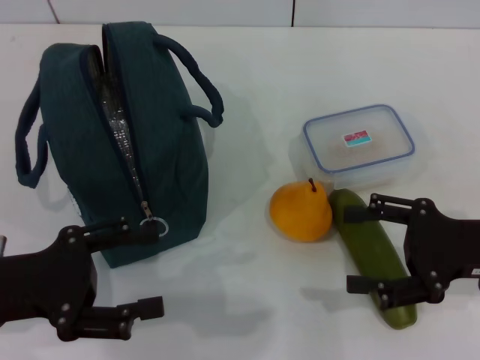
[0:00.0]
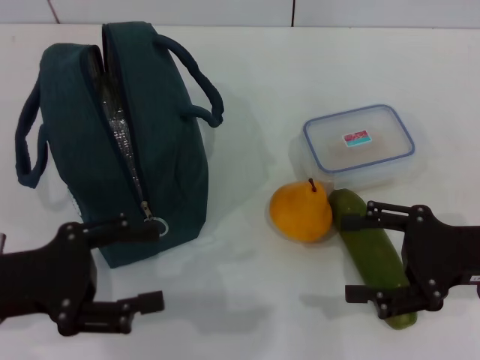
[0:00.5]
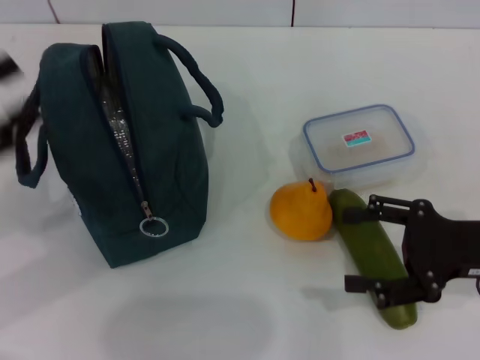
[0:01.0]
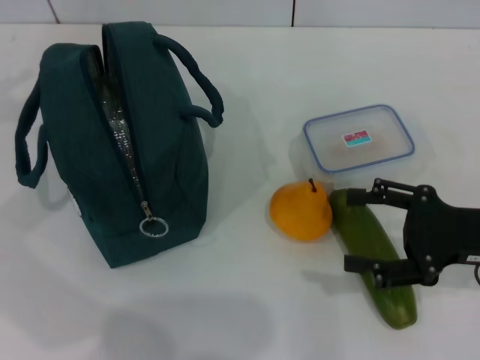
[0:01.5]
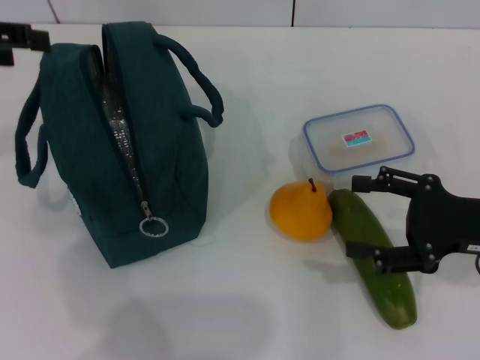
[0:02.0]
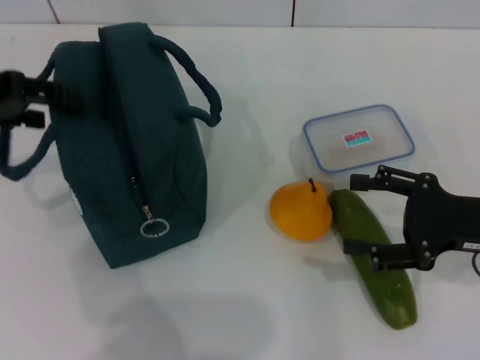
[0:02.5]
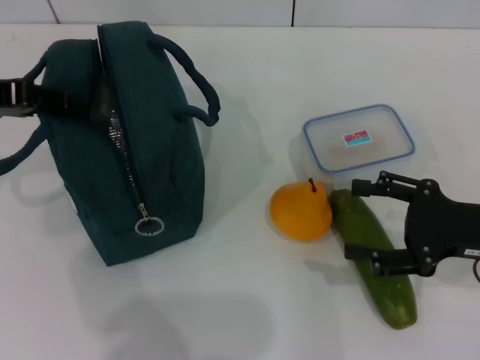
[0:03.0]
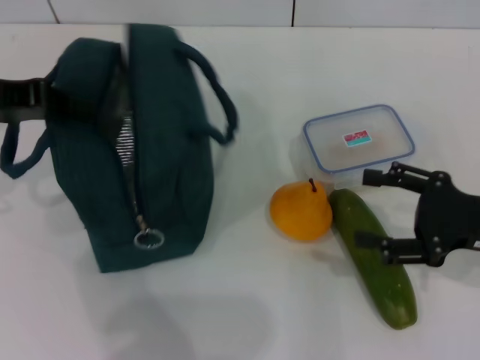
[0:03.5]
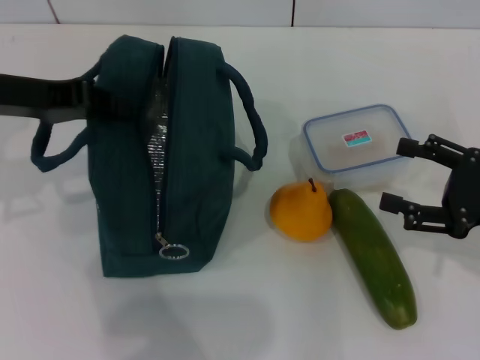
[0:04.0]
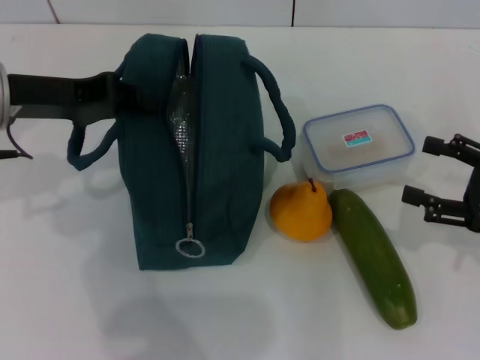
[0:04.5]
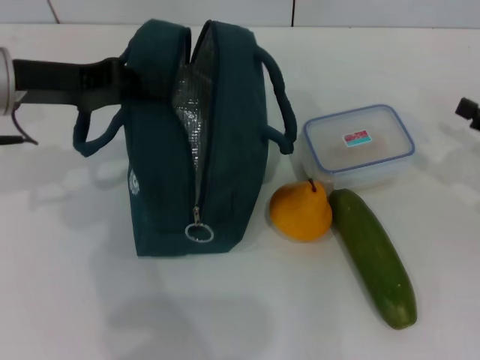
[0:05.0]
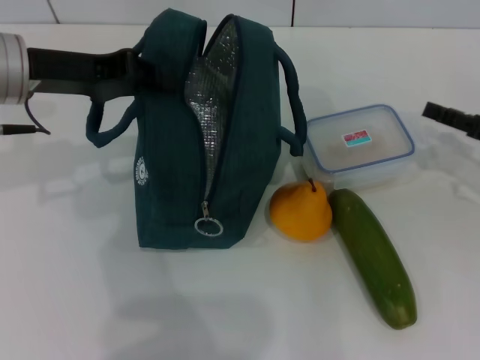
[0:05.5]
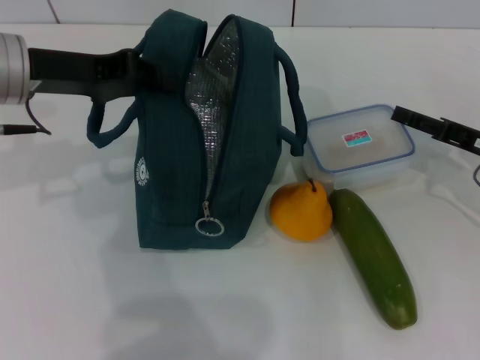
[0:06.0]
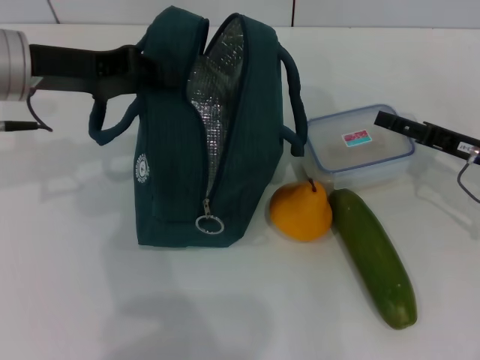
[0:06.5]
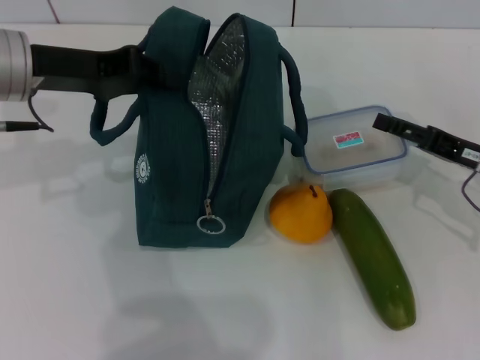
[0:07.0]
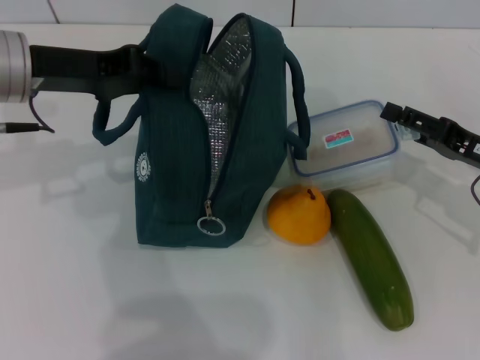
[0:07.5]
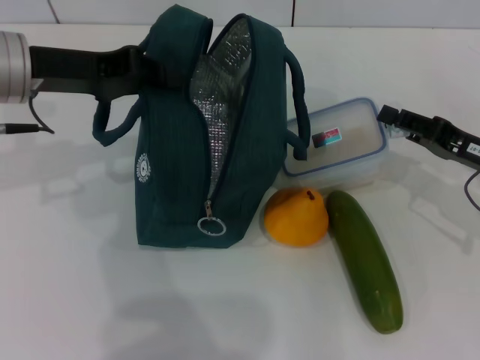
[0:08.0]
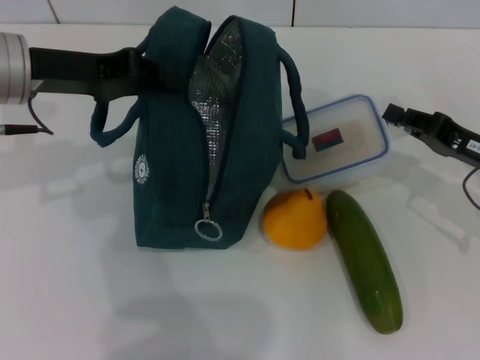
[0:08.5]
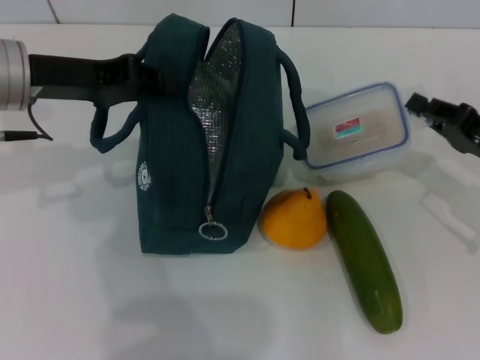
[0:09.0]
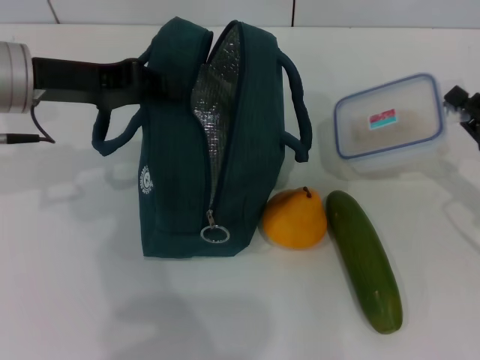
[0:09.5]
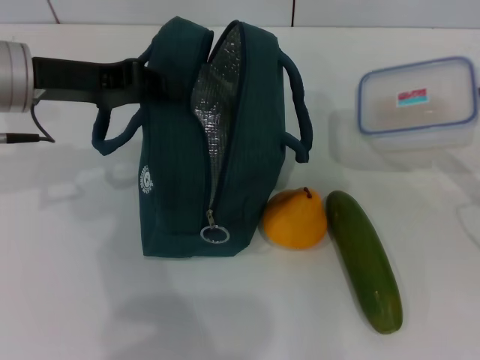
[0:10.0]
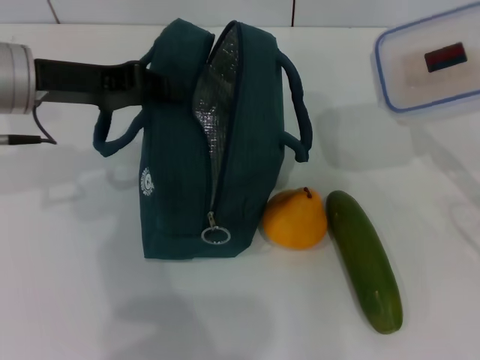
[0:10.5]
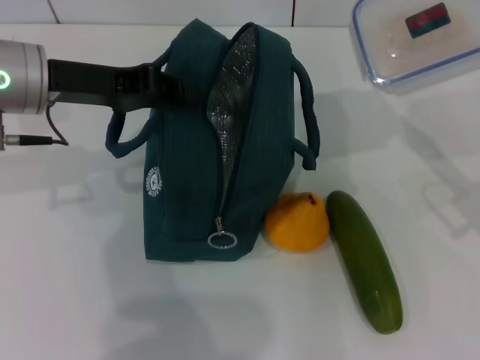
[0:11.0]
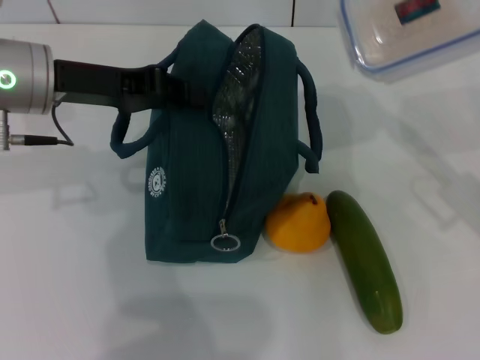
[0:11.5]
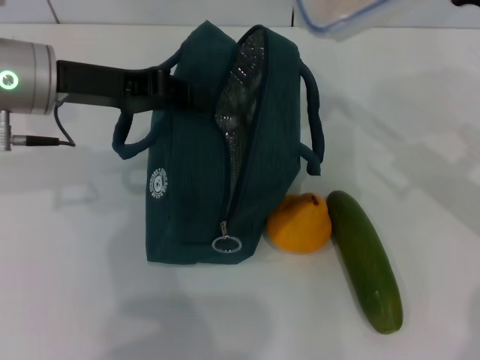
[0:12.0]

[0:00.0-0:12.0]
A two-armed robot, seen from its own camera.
Step, 0:00.0 to 0:03.5: Hold the lunch bag with your left hand.
Step, 0:04.5 to 0:08.5: Pick up the lunch box with your right hand.
0:00.0 to 0:02.0: The left gripper goes approximately 20 cm upward and forward.
0:02.0 to 0:04.0: The left gripper travels to the right and downward by some 10 cm, and closes its fingers.
0:04.0 to 0:06.0: The right gripper heads forward, covering some 5 cm.
0:06.0 to 0:08.0: There are only small adjustments of the grippers.
0:08.0 to 0:10.0: The right gripper shifts by some 5 cm, and closes.
0:10.0 to 0:12.0: The right gripper shifts roughly 15 cm upward, to the left and forward.

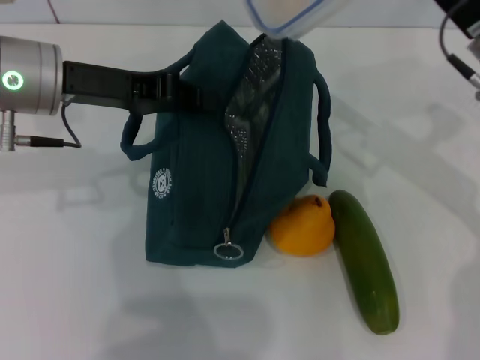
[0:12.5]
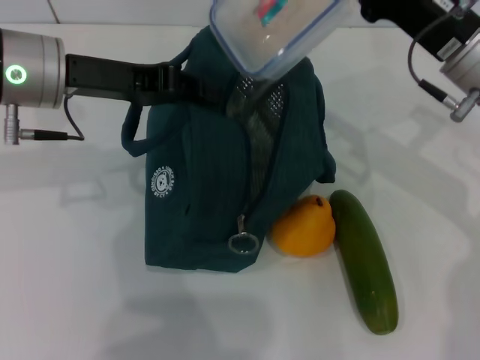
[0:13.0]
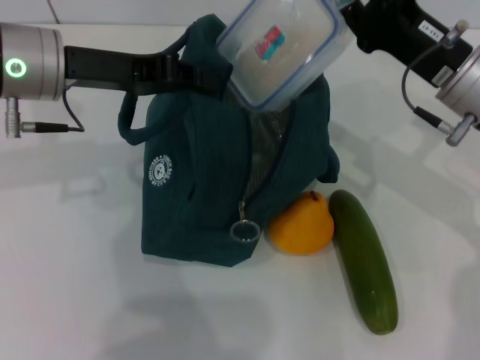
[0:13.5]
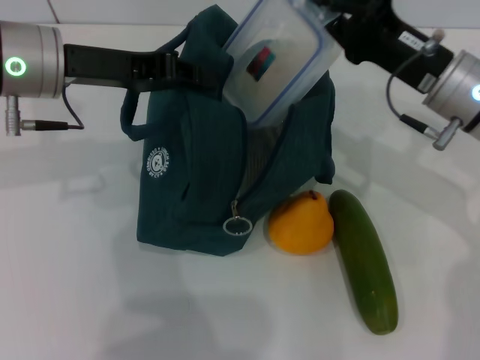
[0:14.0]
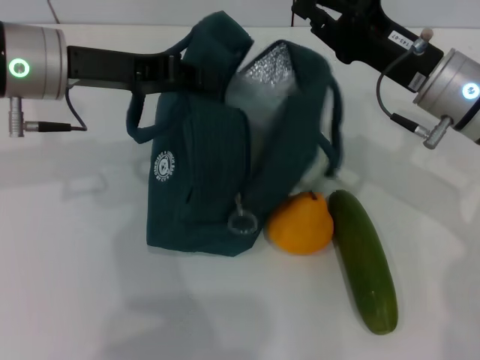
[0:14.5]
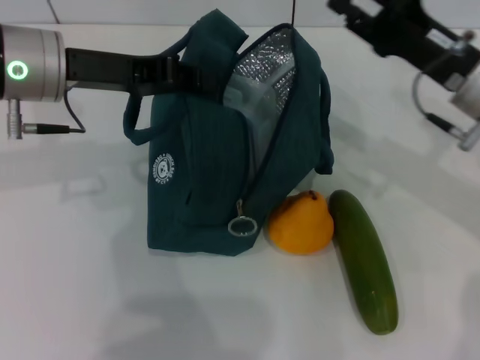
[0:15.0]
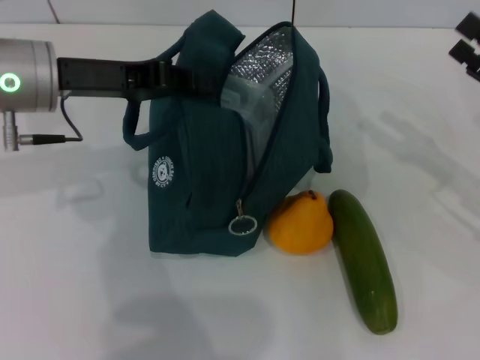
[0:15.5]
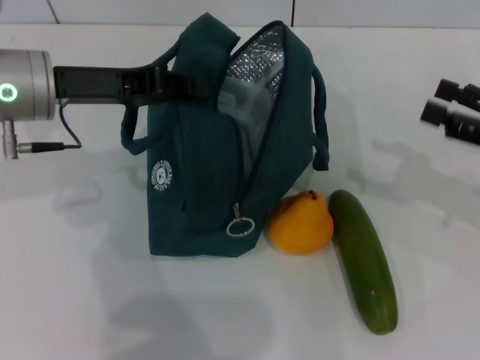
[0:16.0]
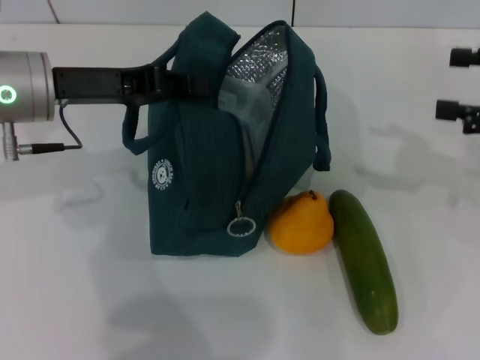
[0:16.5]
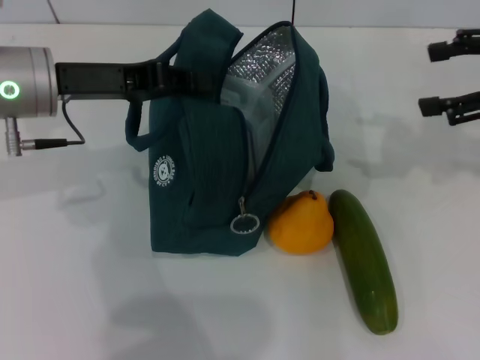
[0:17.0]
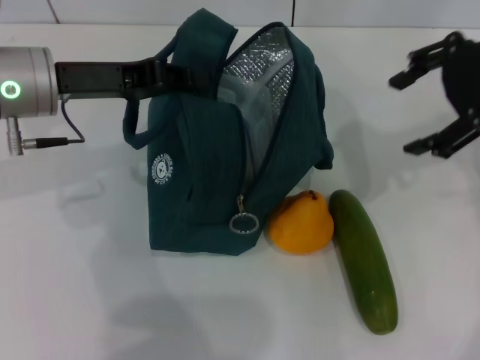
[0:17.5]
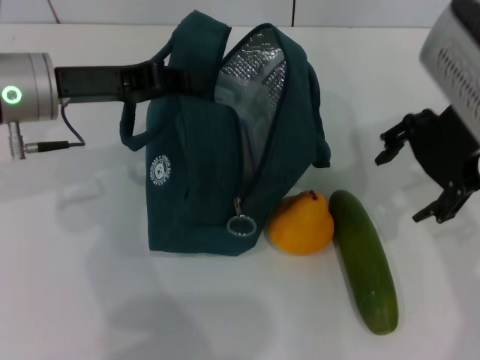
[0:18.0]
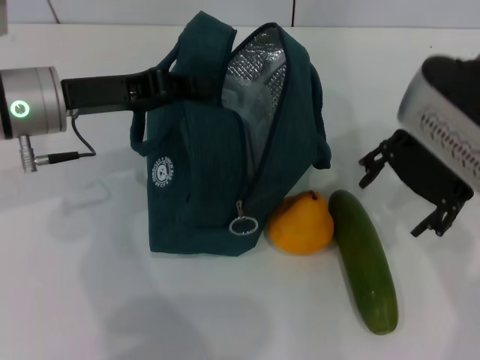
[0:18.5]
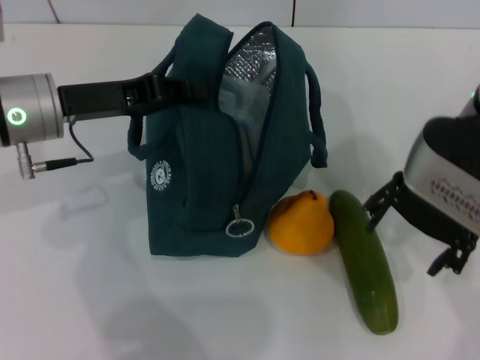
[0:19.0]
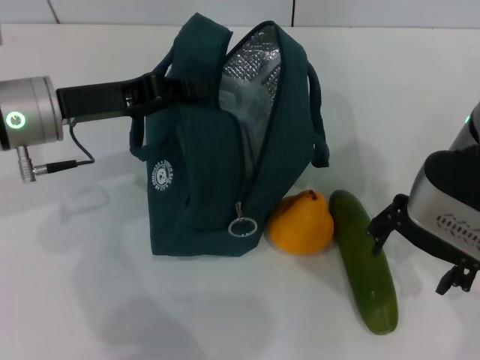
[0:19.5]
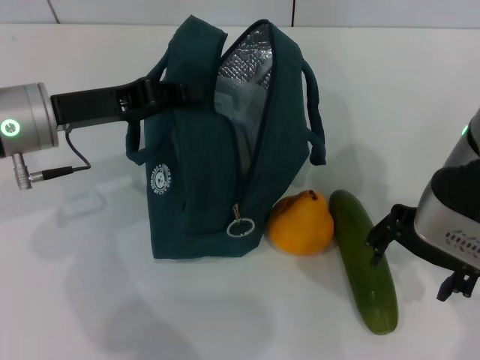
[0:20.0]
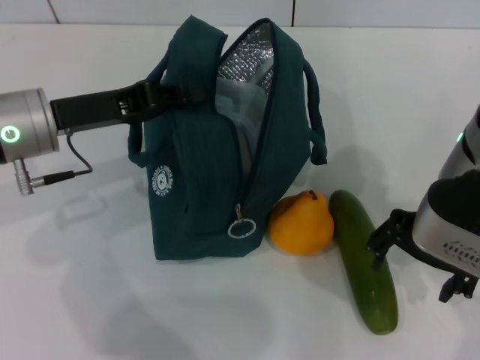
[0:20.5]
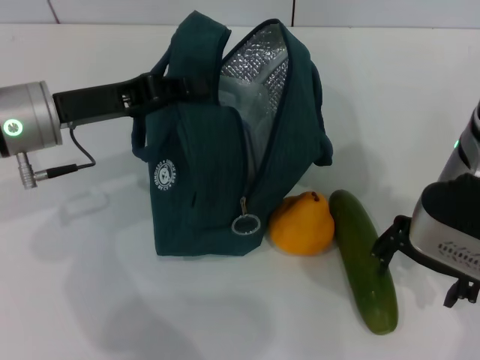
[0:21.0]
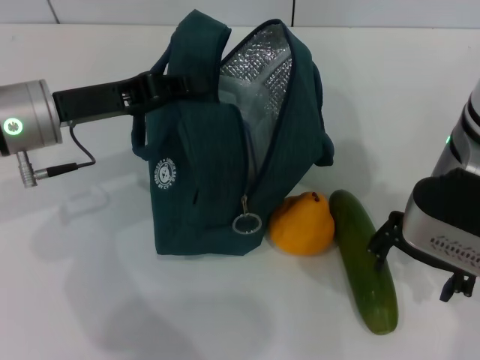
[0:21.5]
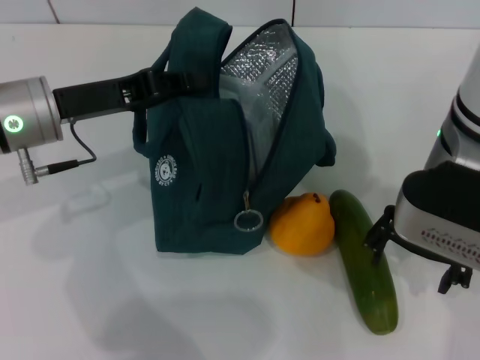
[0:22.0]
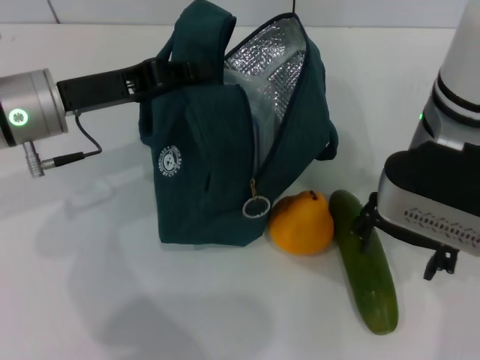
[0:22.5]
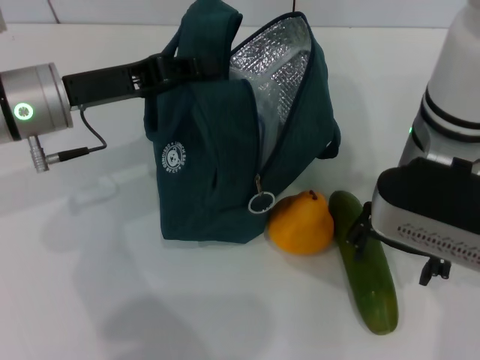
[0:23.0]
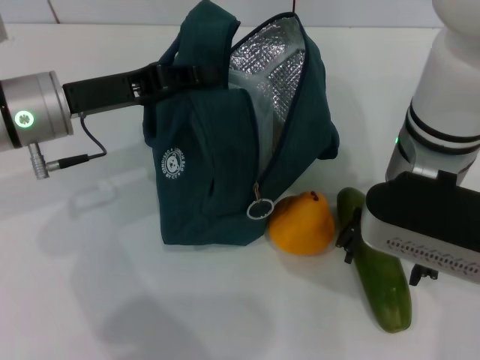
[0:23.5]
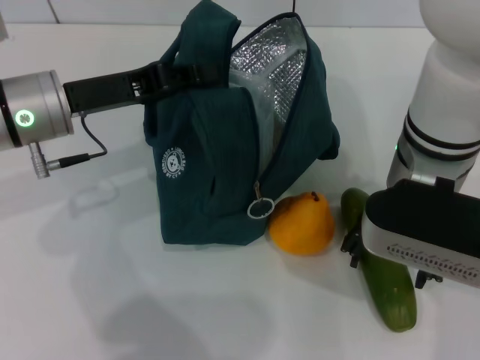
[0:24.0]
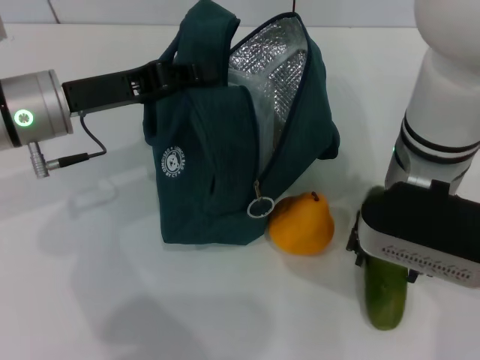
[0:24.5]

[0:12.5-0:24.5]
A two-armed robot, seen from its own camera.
Step, 0:12.5 to 0:15.0: Place the lunch box into the lunch bag with your right hand.
0:14.5 to 0:16.5: The right gripper moves to the right, approximately 15 cm, and opens its fingers.
0:16.5 to 0:18.5: The right gripper goes about 20 cm to the left.
0:18.5 to 0:20.5: The right gripper shifts by approximately 5 cm.
0:22.5 to 0:24.5: There are only small adjustments of the grippers.

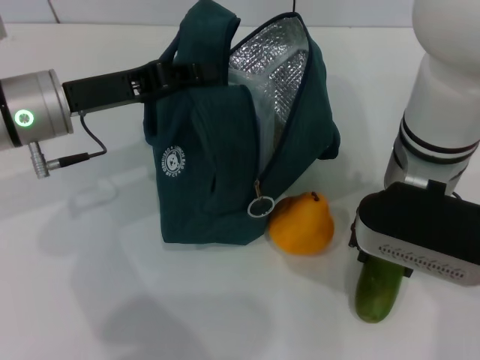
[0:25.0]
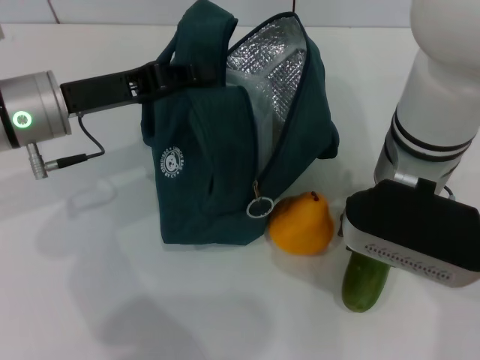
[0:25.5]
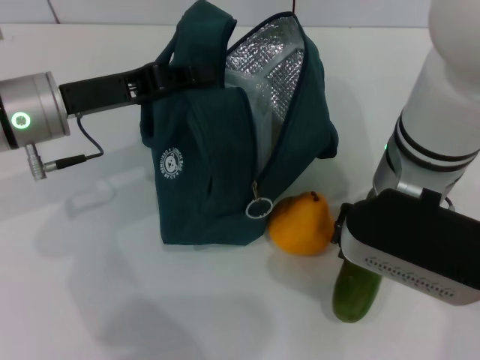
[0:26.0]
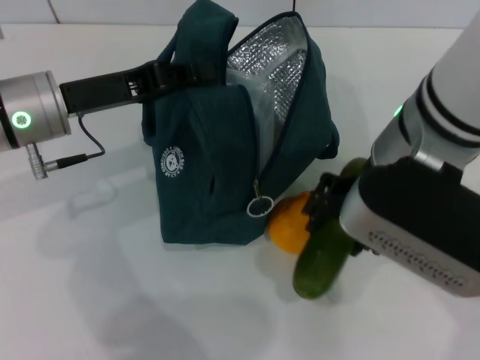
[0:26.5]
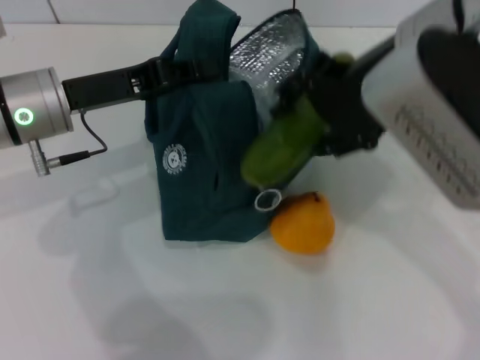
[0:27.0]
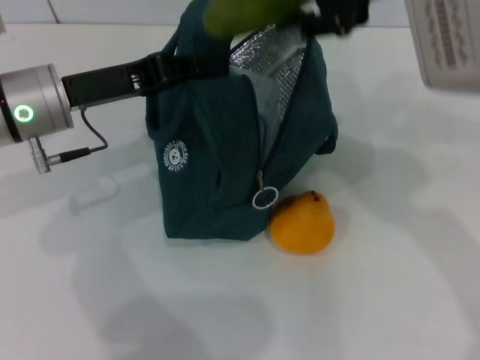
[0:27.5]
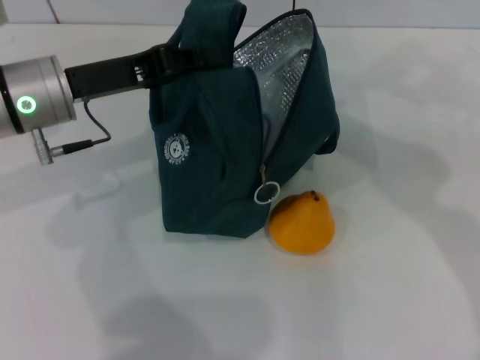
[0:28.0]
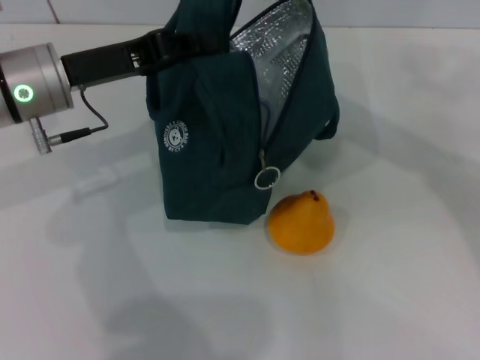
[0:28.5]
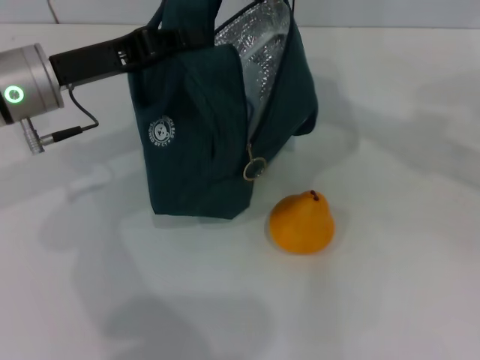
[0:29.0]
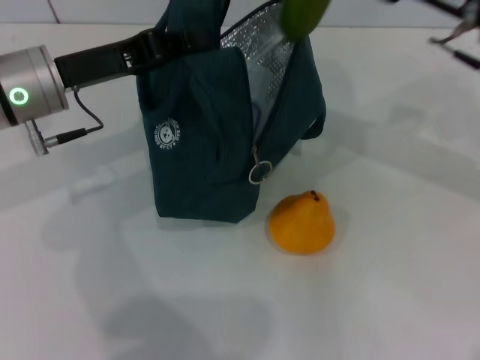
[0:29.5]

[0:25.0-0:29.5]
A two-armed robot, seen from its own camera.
0:25.0 to 0:27.0: The right gripper heads upward, covering about 15 cm.
0:27.0 to 0:29.5: The right gripper shifts approximately 15 cm to the right, downward and forward.
